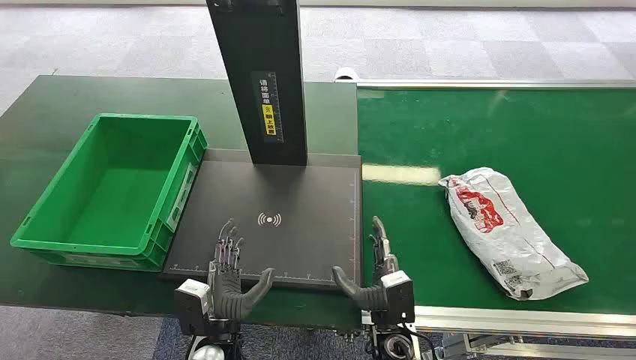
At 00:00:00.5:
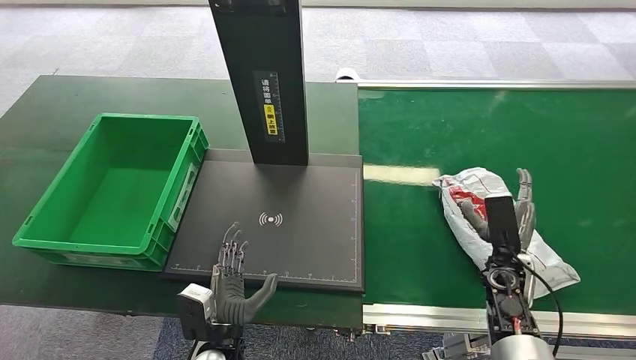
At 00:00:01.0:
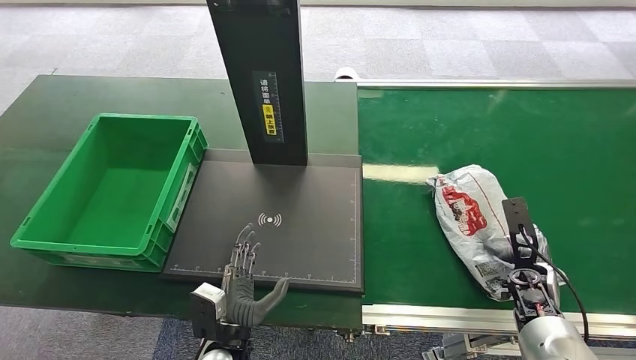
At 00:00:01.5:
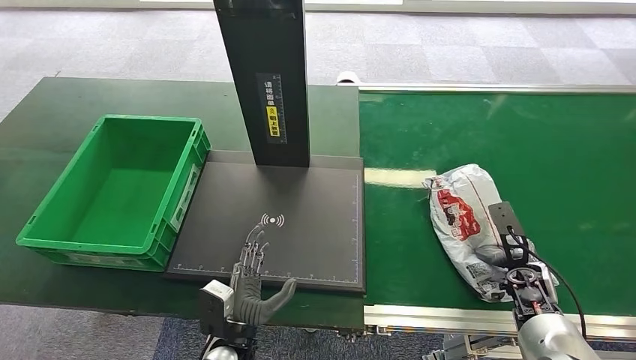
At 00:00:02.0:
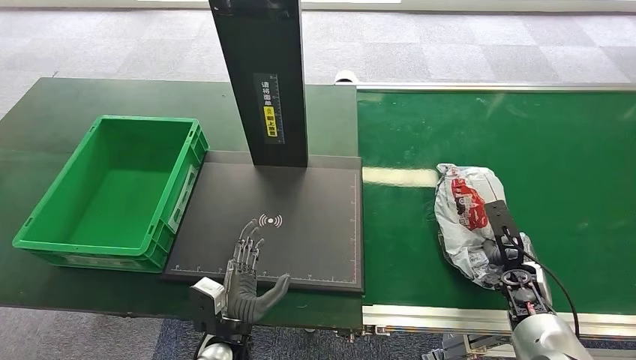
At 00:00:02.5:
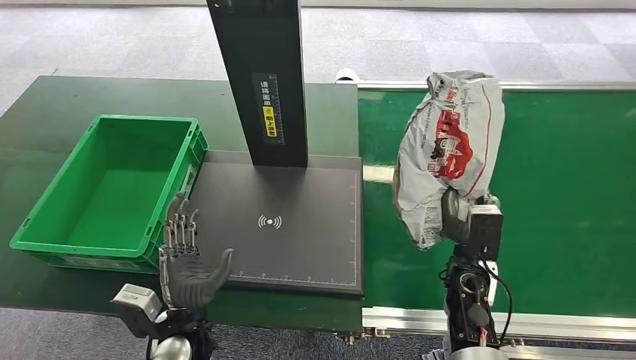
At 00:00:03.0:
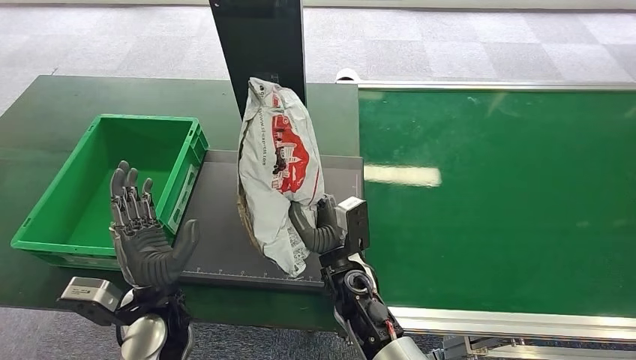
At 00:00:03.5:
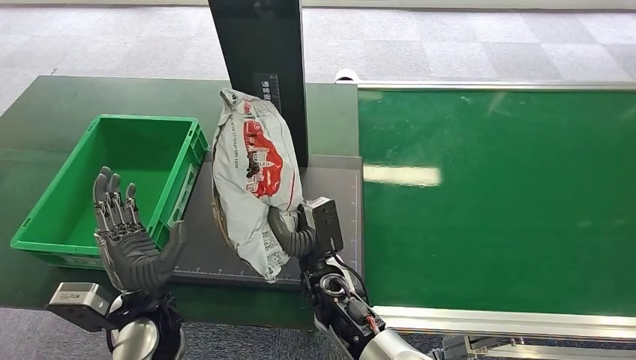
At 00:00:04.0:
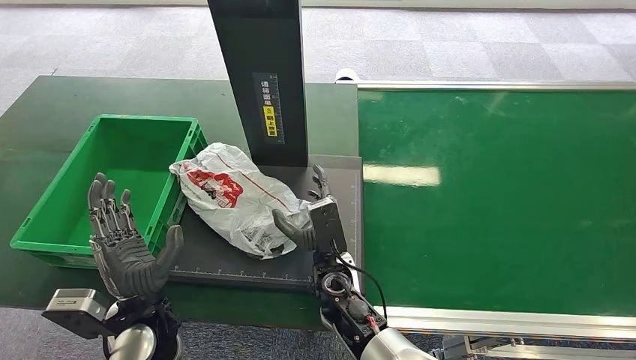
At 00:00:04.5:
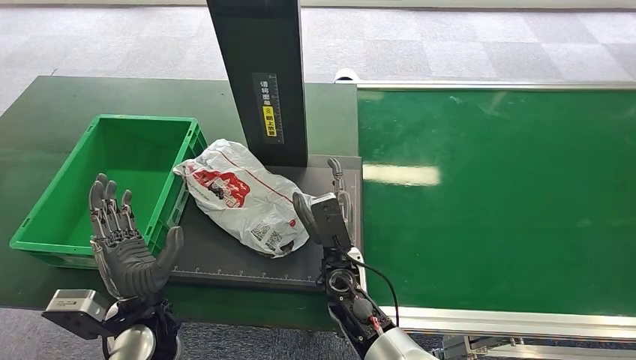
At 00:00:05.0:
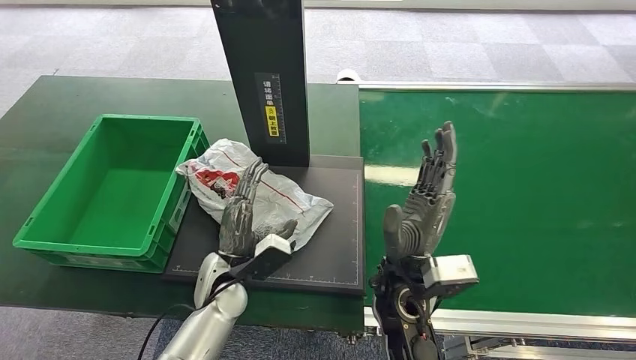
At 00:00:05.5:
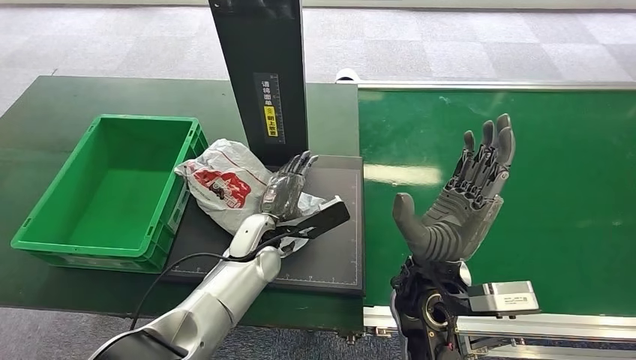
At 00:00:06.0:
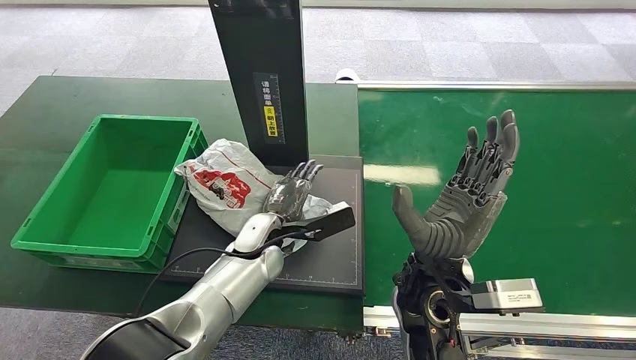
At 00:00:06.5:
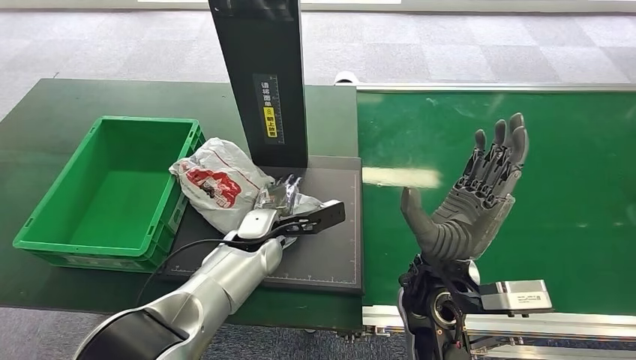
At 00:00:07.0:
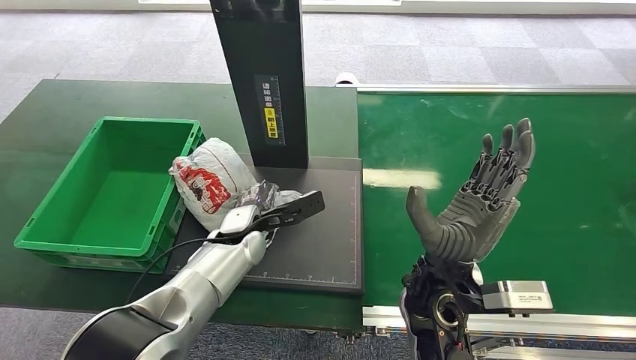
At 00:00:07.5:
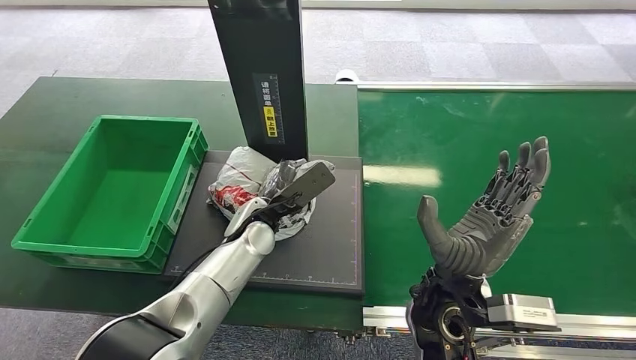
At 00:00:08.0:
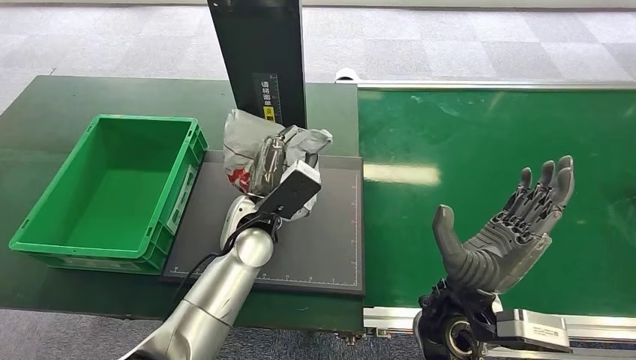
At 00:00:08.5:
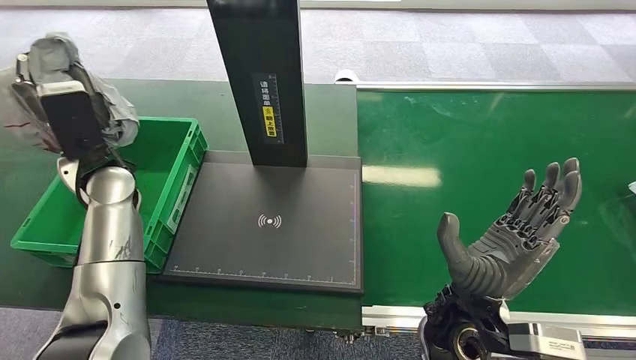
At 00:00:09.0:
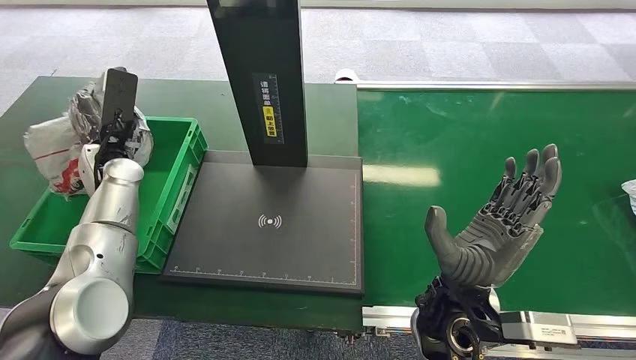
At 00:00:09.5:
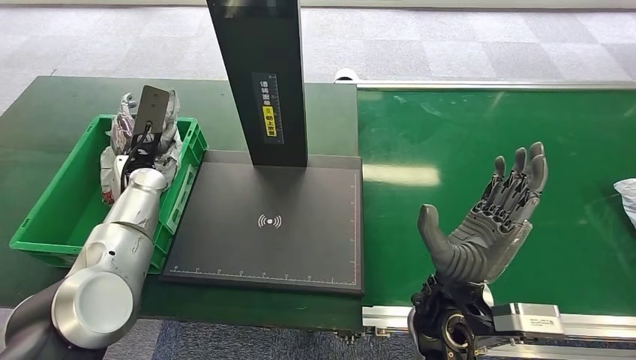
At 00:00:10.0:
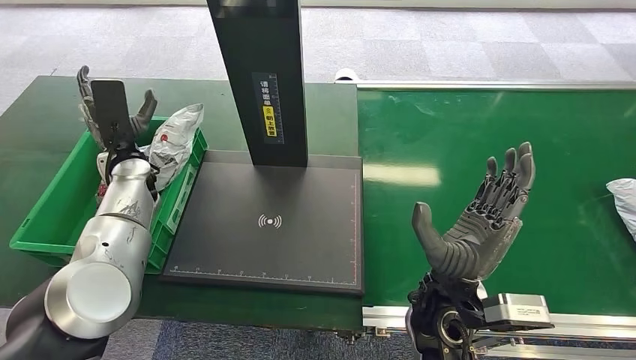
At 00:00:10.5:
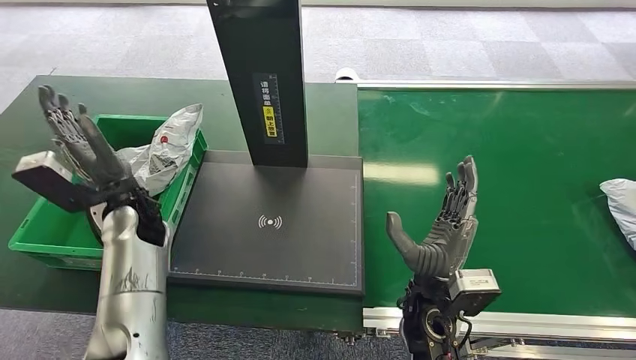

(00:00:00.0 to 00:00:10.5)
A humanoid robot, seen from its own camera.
Step, 00:00:00.0 - 00:00:02.5: Pick up the package from the conveyor belt.
Step, 00:00:03.0 - 00:00:04.5: Place the package onto the inbound machine.
Step, 00:00:05.0 - 00:00:08.5: Pick up the package from the inbound machine.
Step, 00:00:09.0 - 00:00:10.5: Place the package into the parcel locker.
